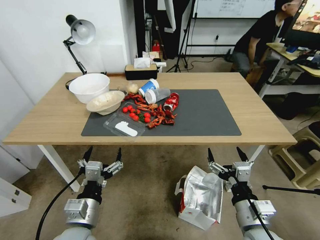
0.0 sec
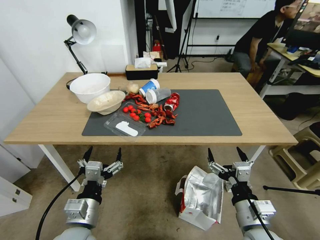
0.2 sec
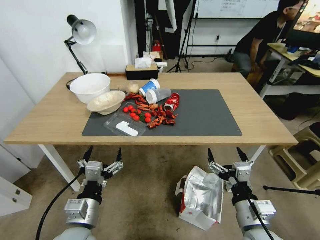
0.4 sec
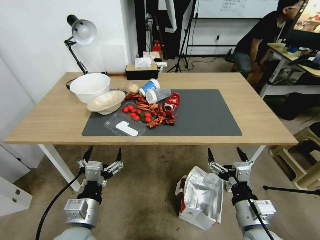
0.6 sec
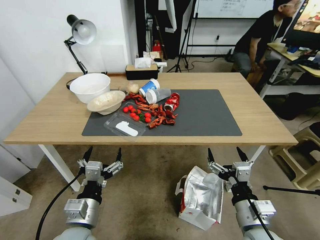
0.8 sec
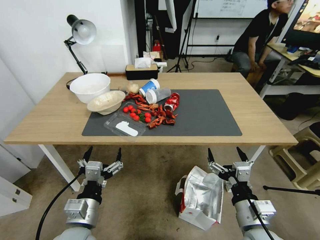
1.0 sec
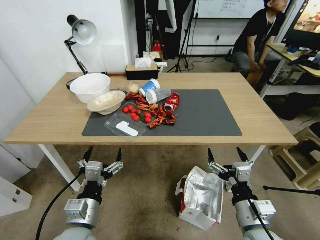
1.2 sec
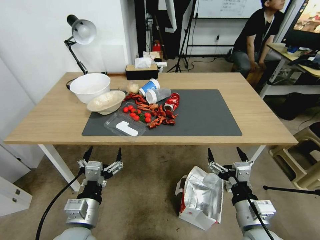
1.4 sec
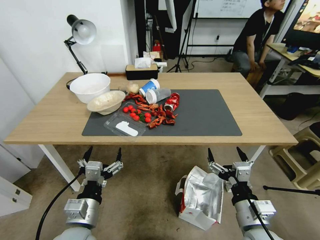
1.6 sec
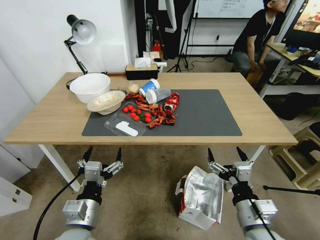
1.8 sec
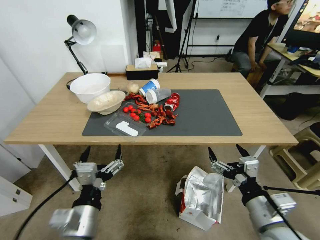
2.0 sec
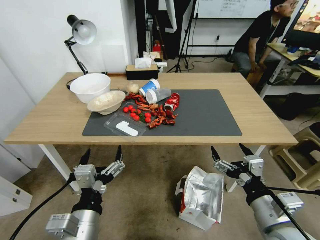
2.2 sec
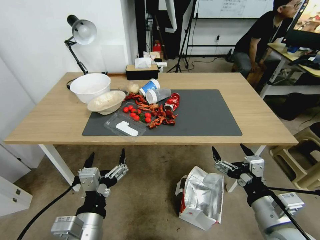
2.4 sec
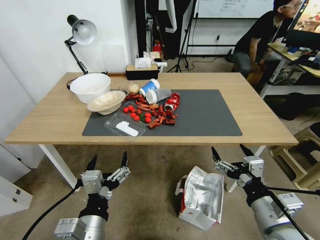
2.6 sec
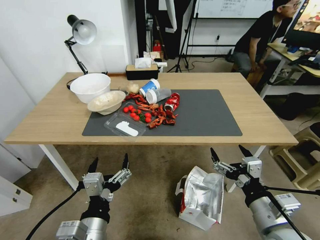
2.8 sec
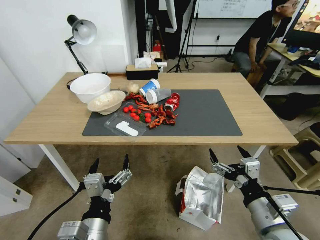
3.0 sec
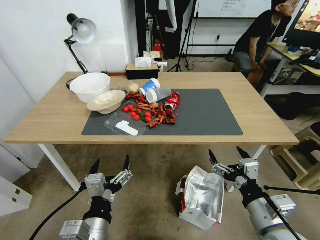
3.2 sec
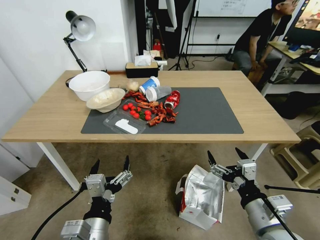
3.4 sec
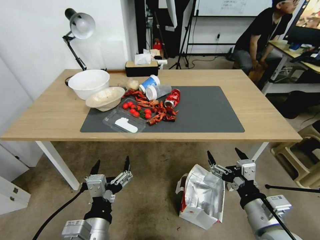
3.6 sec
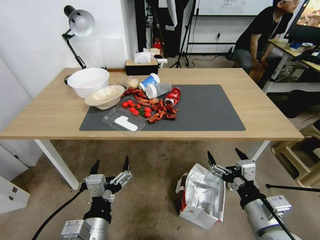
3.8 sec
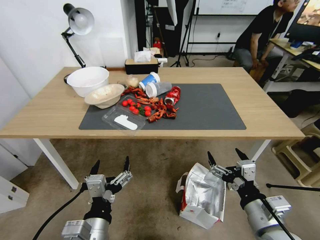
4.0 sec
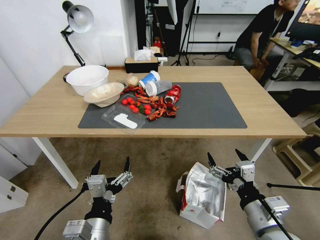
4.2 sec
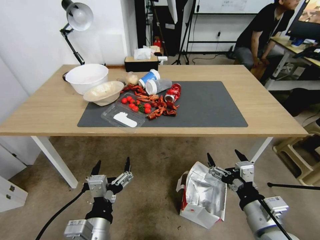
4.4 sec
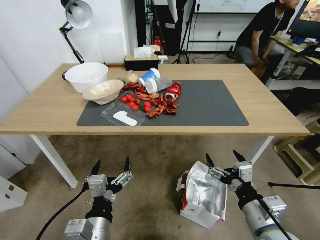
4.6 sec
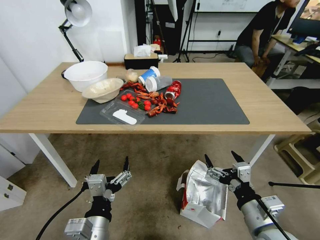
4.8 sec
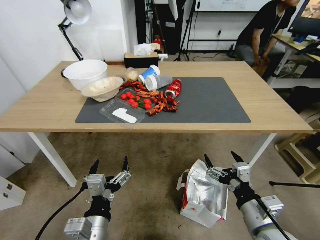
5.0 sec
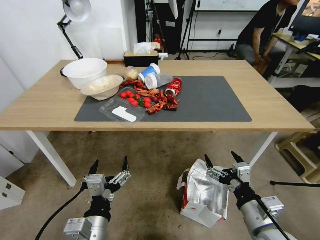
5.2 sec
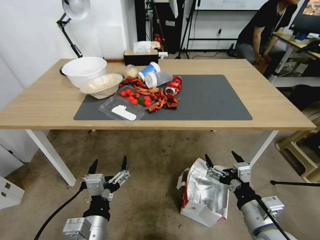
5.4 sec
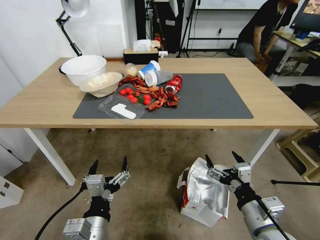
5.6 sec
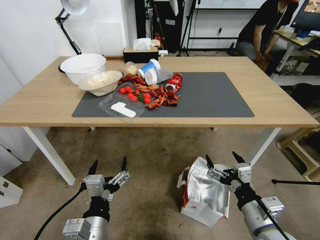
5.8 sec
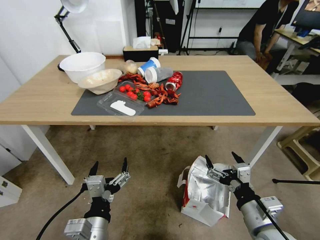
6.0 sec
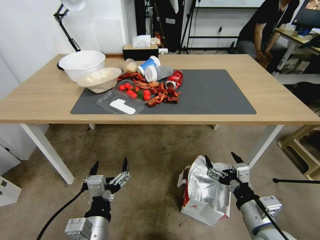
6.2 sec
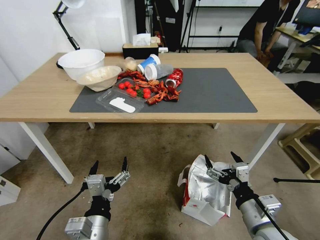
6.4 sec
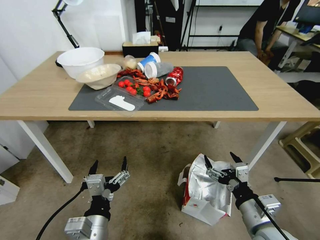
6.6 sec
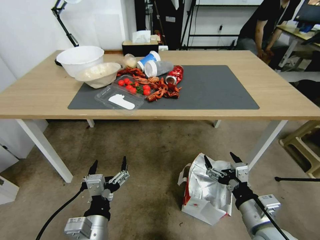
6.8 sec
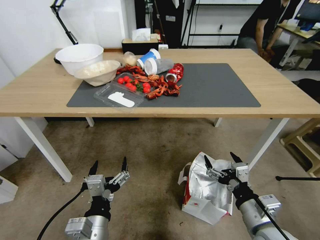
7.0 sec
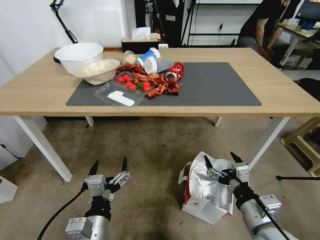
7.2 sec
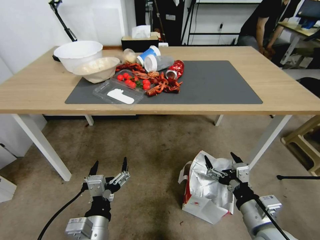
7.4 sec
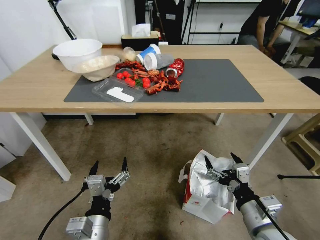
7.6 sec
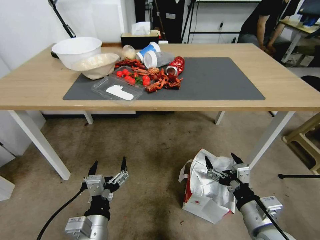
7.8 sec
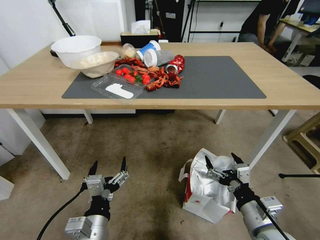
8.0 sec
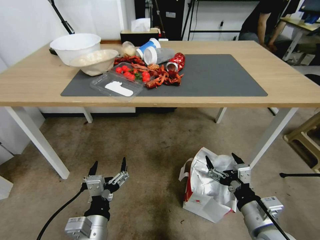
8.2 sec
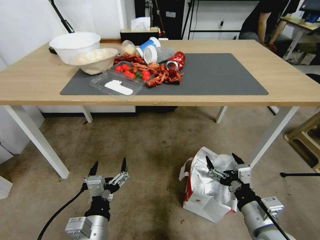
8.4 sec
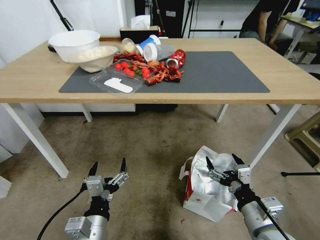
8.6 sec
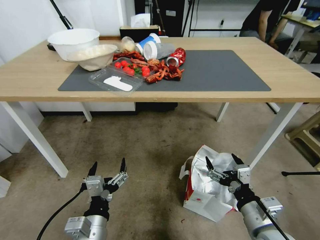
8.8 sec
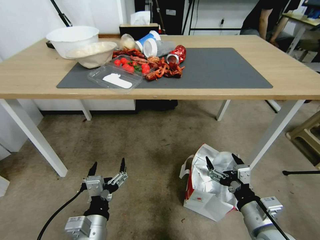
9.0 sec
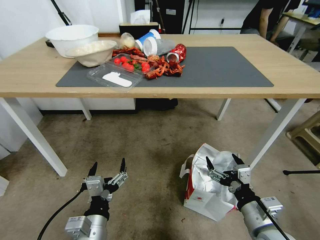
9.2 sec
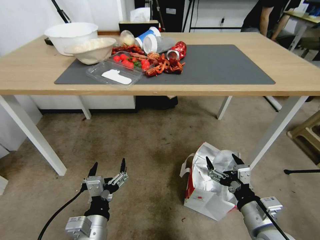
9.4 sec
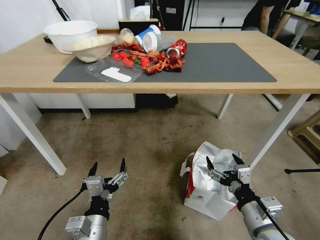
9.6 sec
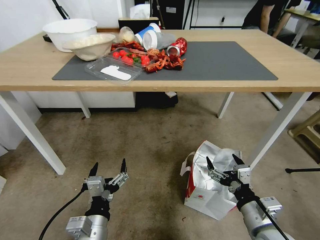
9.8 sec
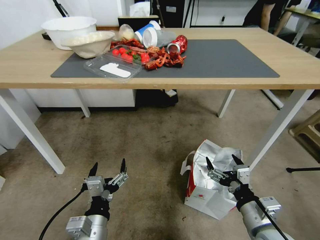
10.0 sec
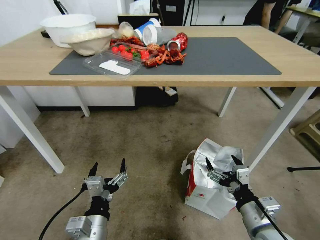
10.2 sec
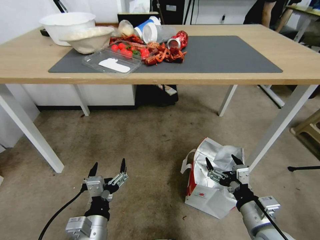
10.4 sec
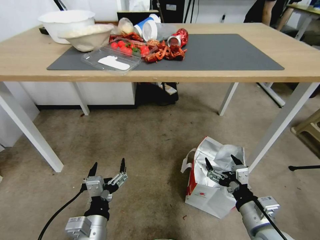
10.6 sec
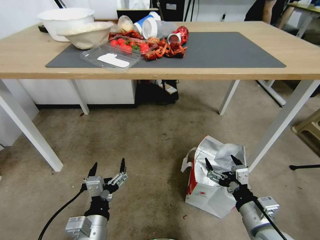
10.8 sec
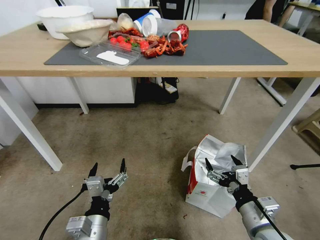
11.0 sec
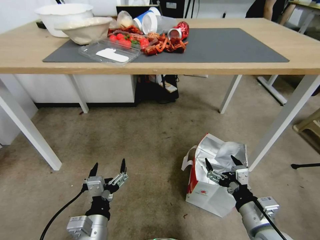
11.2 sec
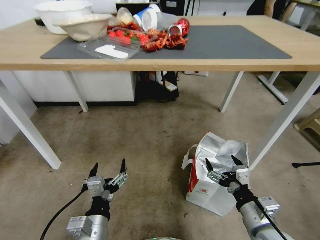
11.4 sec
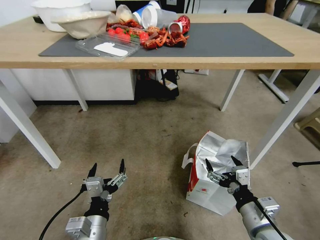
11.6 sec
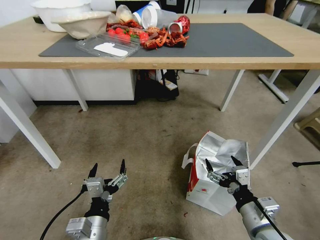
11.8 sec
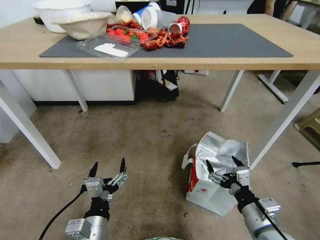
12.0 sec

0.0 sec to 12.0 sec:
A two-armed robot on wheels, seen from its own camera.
Task of the whole recording: Pick up the food delivery bag from the floor and place it on the table.
1.6 sec to 3.0 sec: The right gripper shifts some 5 cm upward. The left gripper heads backward, covering some 5 cm.

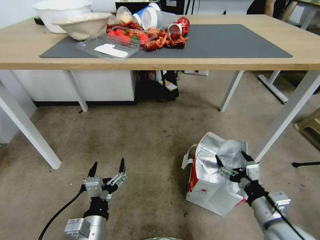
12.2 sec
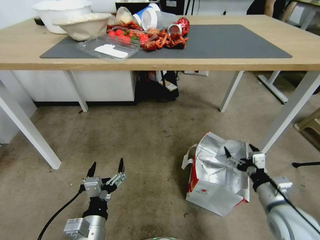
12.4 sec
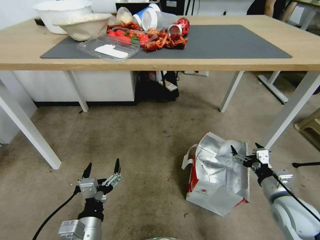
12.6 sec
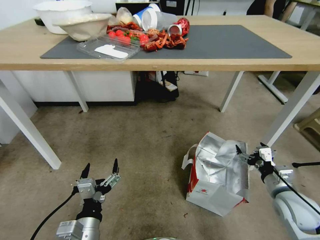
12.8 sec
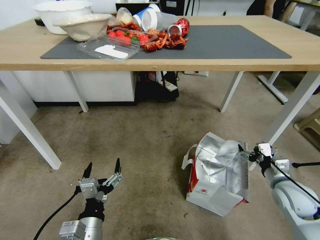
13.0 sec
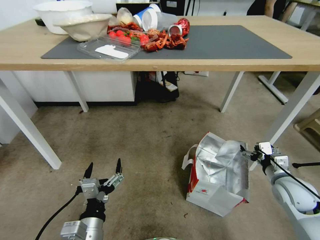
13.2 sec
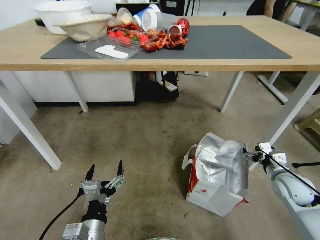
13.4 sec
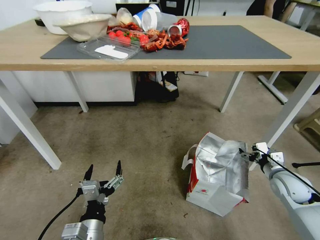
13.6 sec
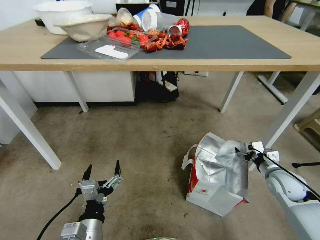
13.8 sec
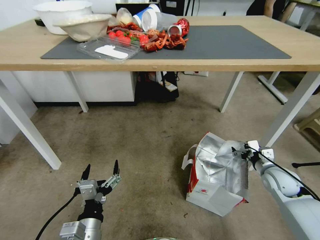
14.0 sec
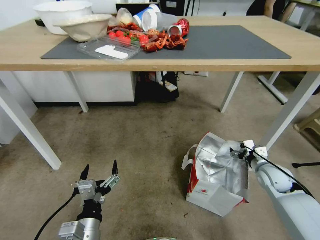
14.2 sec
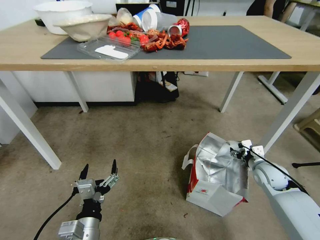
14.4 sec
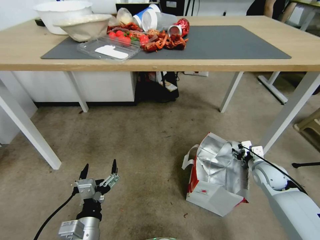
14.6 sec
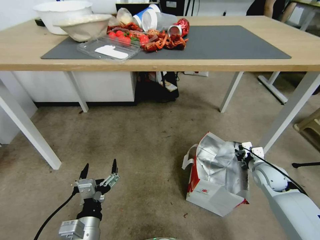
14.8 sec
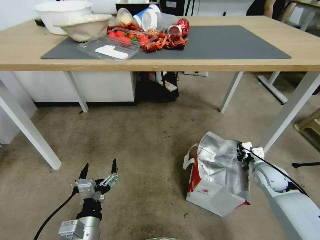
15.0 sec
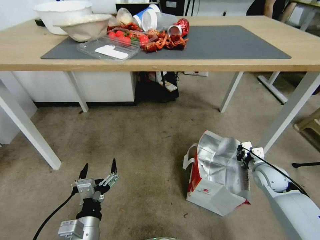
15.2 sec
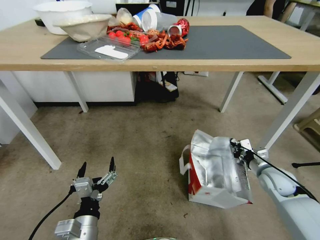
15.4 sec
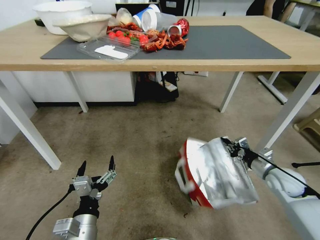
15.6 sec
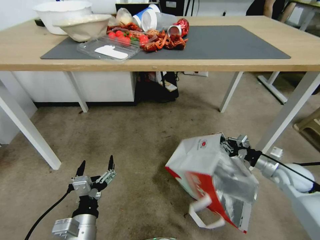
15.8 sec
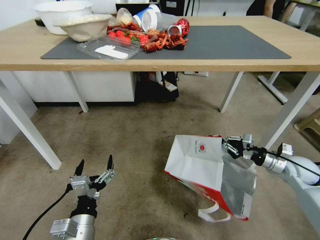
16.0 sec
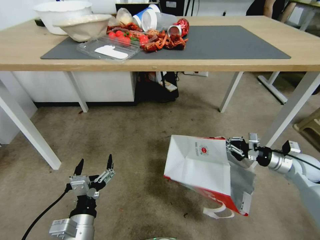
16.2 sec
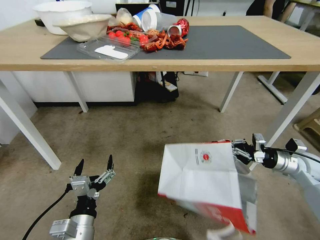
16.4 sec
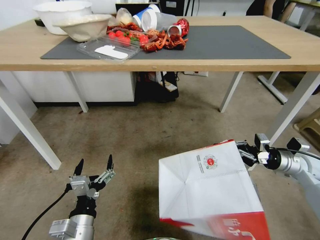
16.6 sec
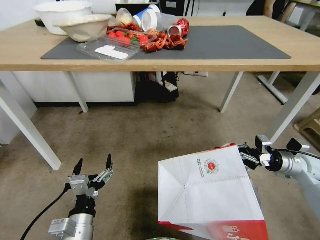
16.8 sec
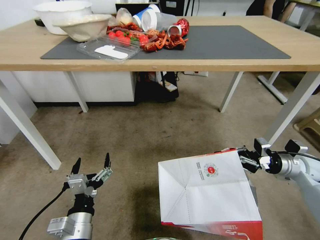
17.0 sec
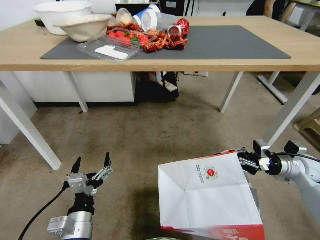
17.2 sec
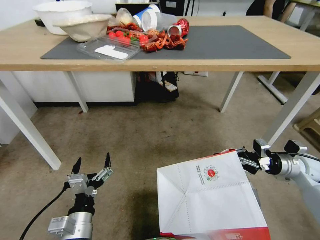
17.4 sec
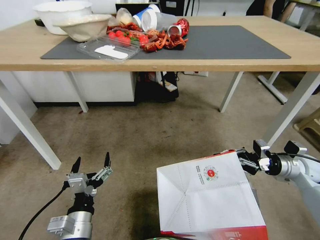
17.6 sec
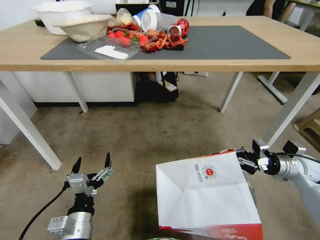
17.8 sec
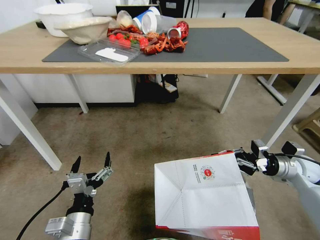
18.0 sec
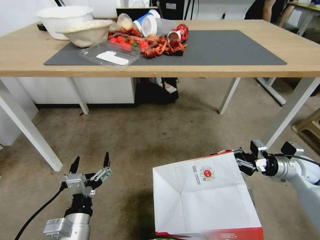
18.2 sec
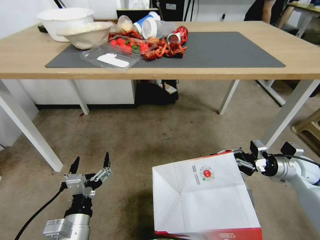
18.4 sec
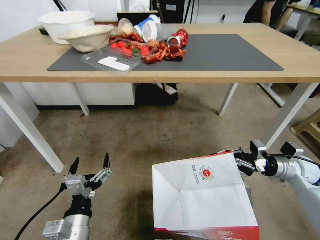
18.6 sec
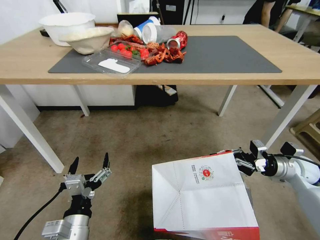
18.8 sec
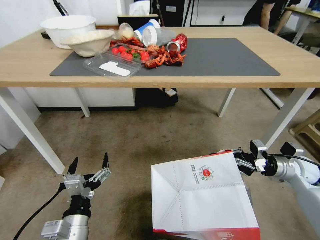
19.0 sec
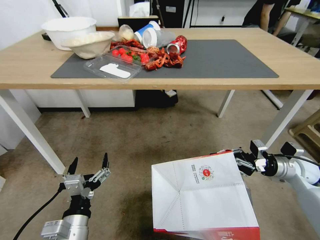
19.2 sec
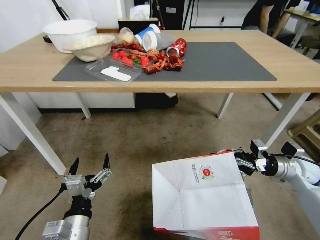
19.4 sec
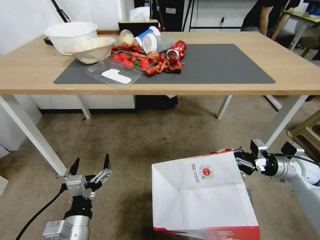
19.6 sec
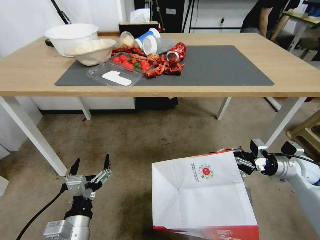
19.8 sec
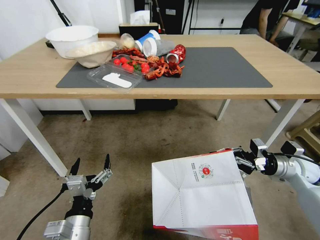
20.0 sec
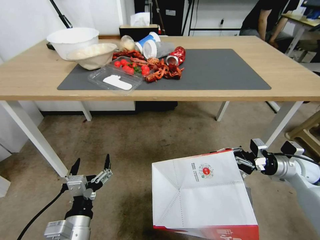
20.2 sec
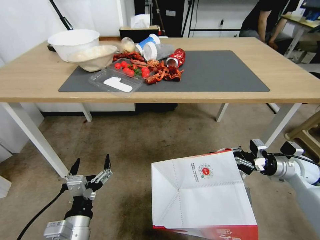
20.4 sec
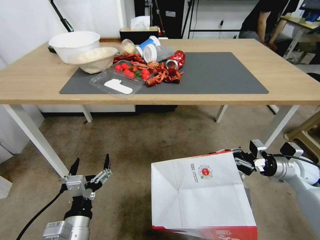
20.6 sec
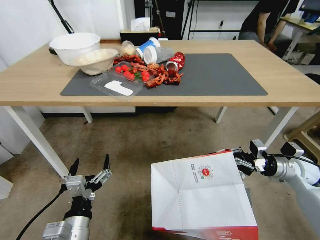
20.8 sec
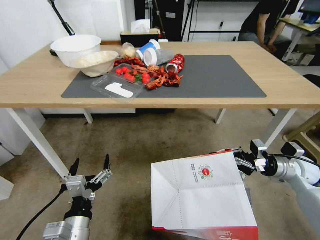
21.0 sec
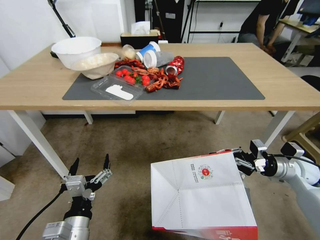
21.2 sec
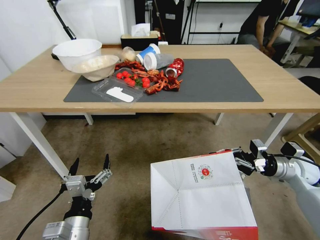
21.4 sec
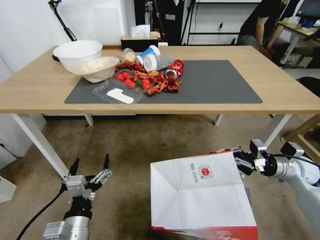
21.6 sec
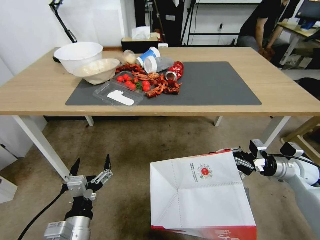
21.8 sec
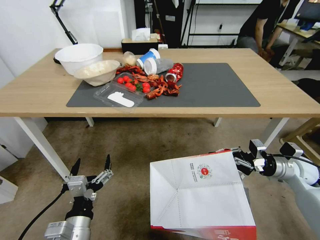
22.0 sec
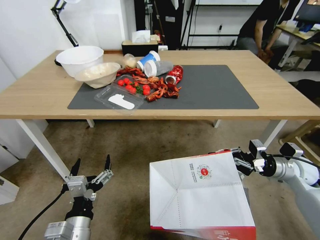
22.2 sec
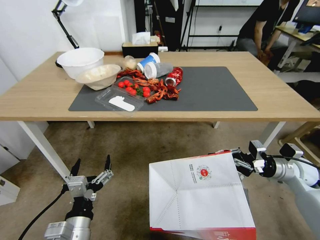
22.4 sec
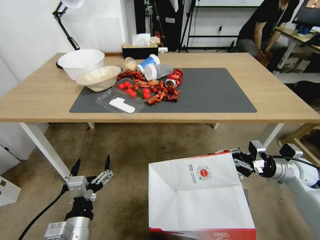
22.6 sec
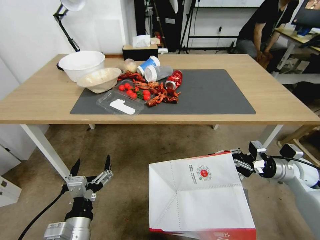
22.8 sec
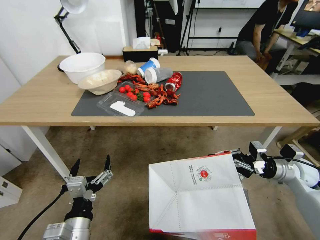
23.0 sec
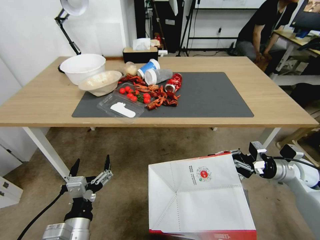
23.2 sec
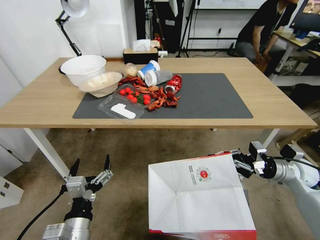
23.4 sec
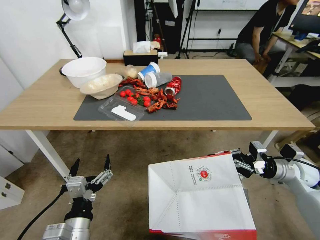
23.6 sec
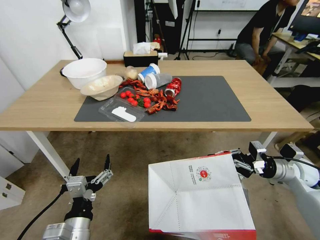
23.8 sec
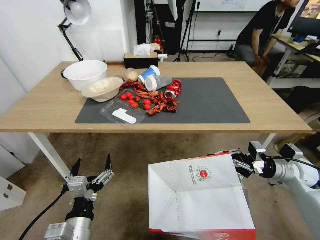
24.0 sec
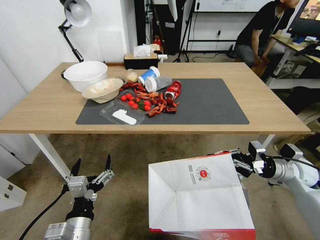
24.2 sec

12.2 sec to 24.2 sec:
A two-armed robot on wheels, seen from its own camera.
Task of the whole recording: Pick up the food delivery bag from the floor and place it on the table.
12.2 sec to 13.8 sec: The right gripper goes about 20 cm forward and to the right.
13.8 sec to 15.2 sec: The right gripper changes place by approximately 5 cm, and closes its fingers.
15.2 sec to 16.6 sec: The right gripper is displaced upward and to the right by about 10 cm.
